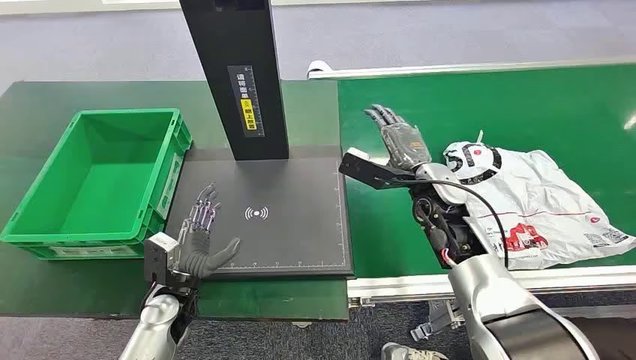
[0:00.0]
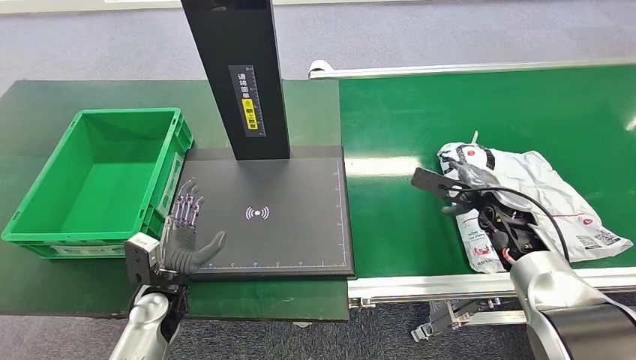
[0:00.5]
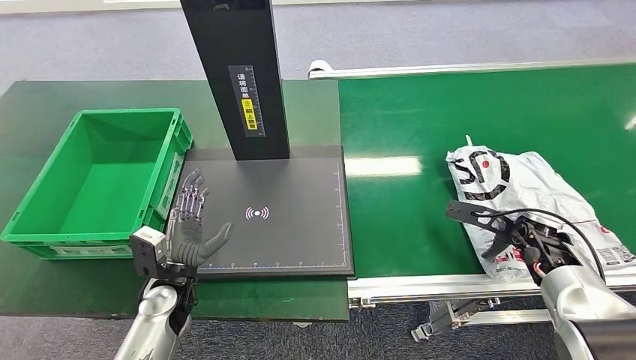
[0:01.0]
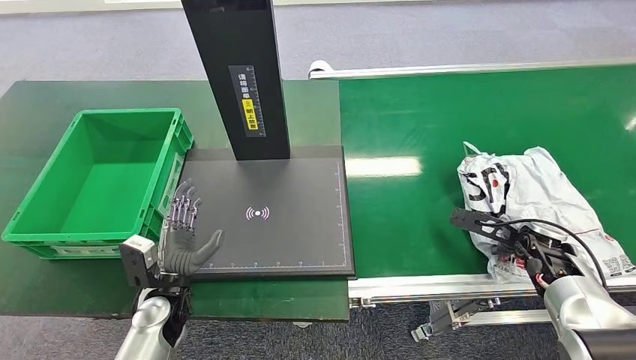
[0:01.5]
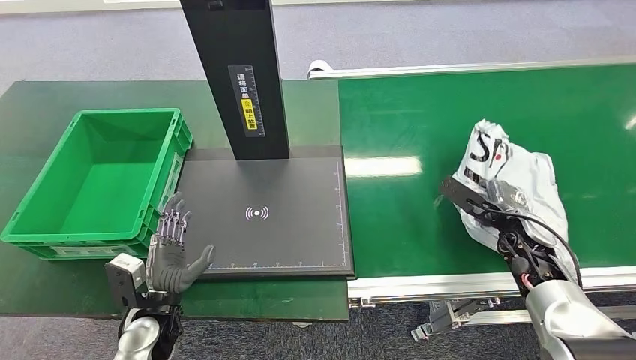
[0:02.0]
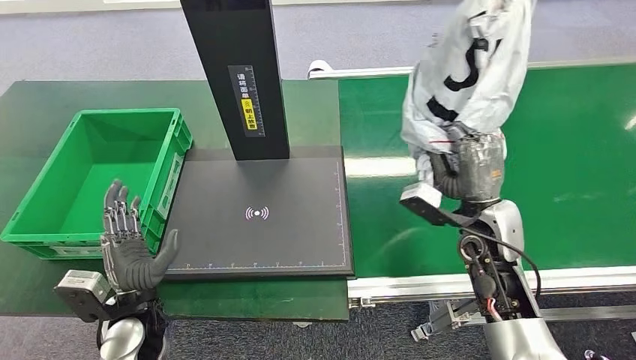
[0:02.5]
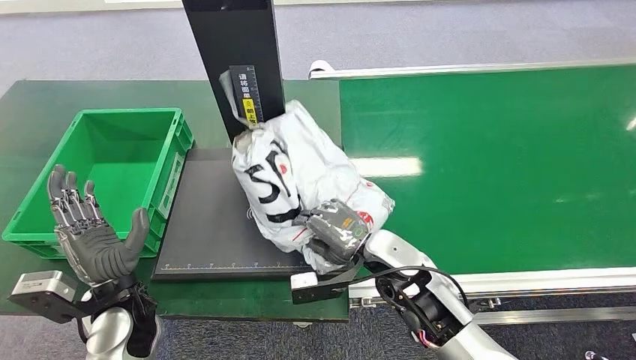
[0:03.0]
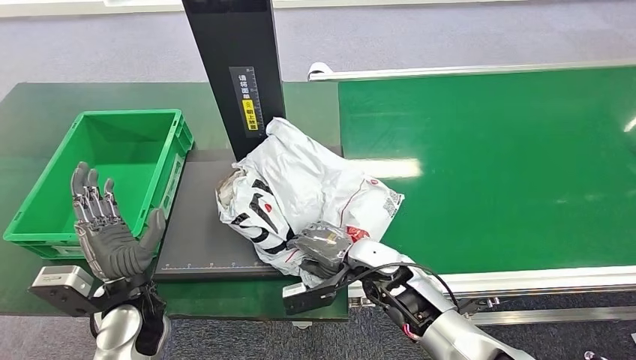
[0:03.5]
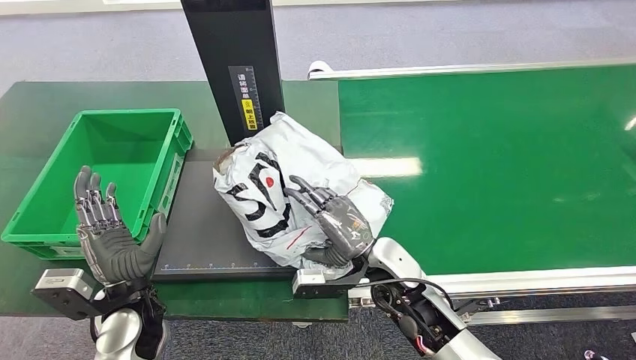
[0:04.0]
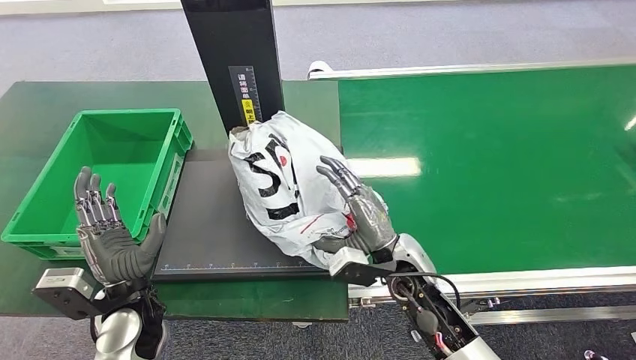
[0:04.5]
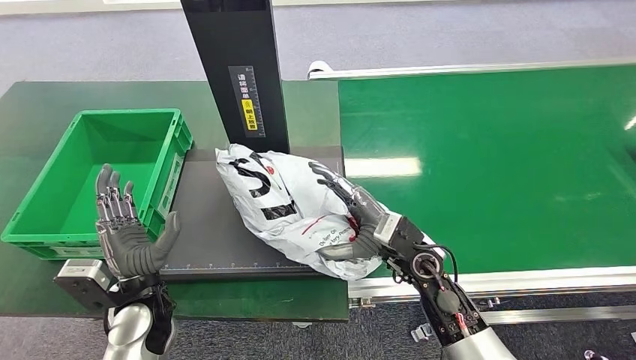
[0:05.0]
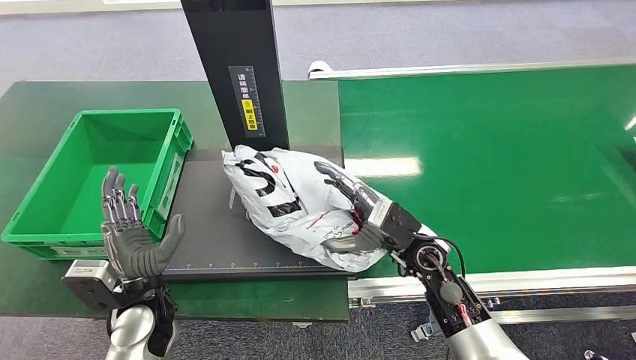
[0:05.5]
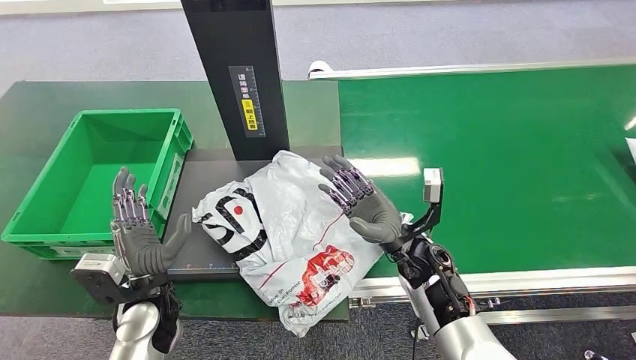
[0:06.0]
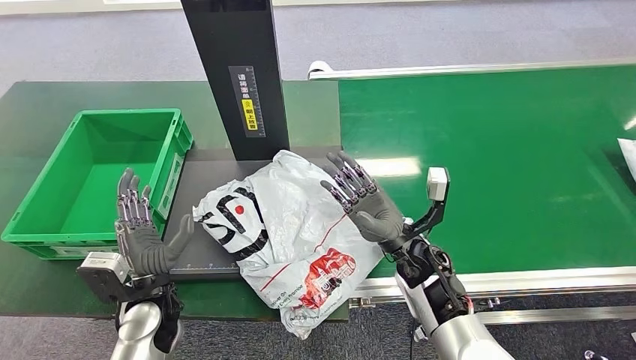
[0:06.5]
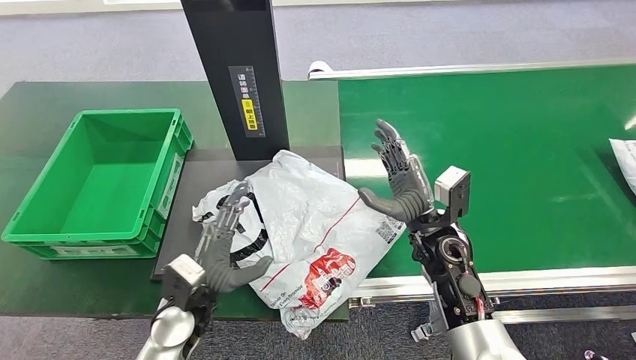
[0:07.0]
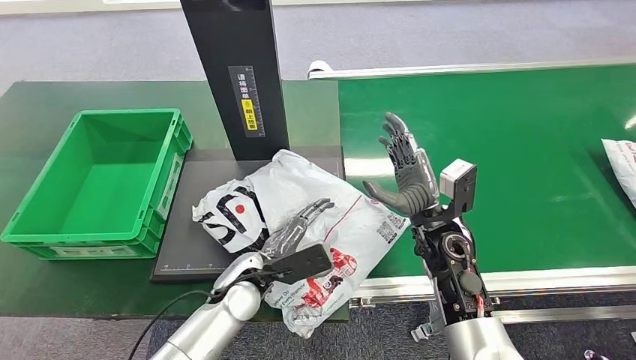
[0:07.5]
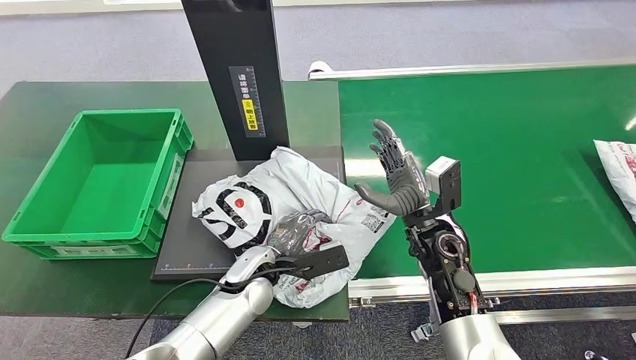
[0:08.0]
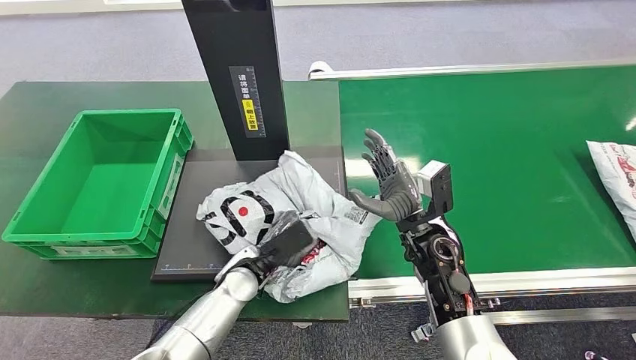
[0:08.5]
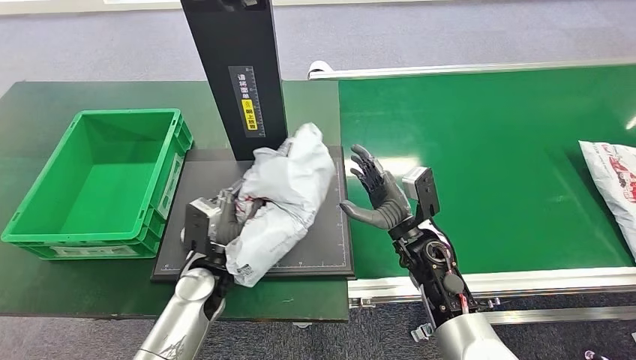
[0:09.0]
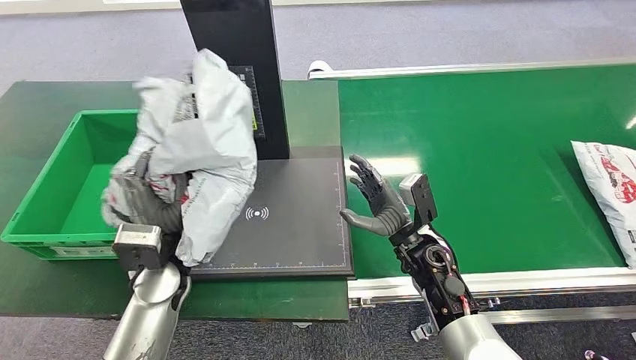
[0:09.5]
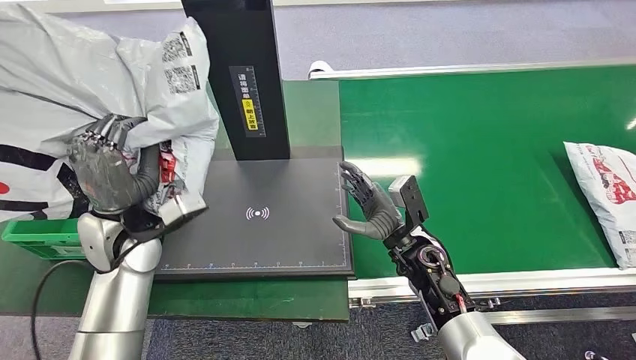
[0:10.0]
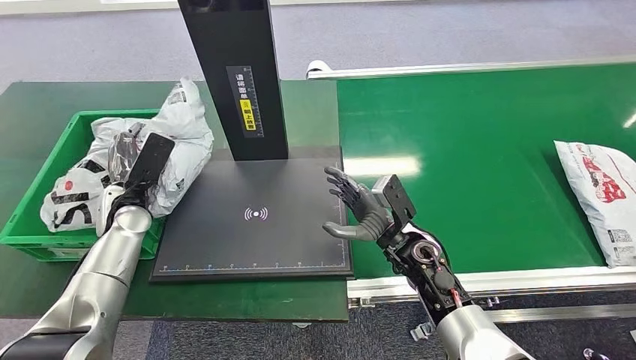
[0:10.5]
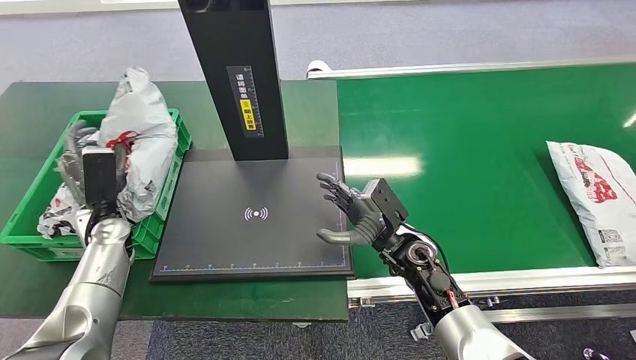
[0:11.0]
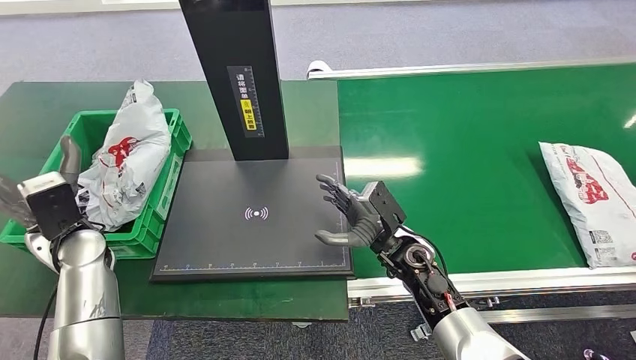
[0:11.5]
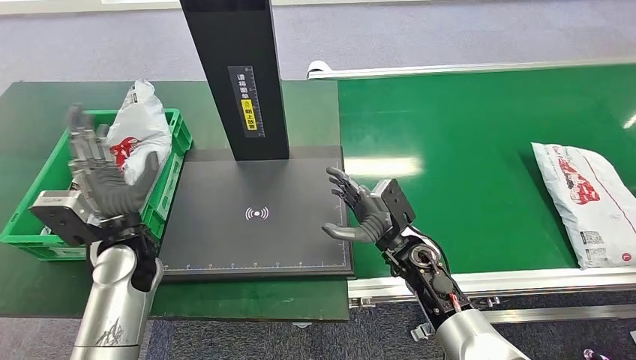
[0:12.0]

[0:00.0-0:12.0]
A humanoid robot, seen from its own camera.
Step, 0:00.0 to 0:02.5: Pick up the package from the conveyor belt.
Step, 0:03.5 to 0:06.5: Place the package onto the inbound machine.
Step, 0:07.0 to 0:09.5: Pick up the package from the inbound machine.
Step, 0:10.0 to 0:12.0: Place the package into the parcel locker.
0:06.0 to 0:08.0: The left hand goes approximately 15 cm to the right and forward.

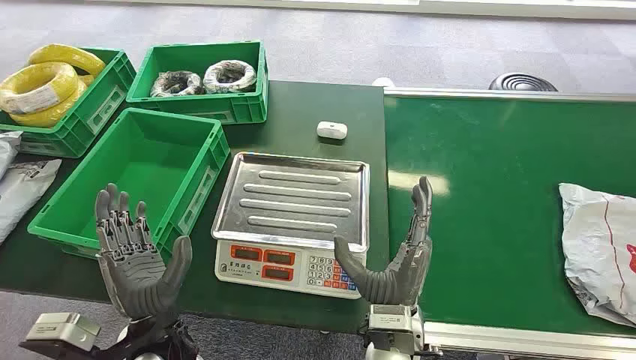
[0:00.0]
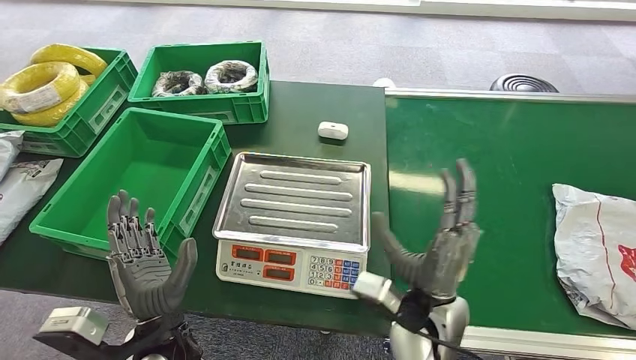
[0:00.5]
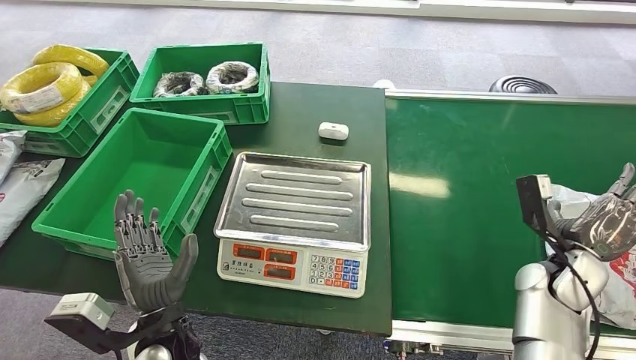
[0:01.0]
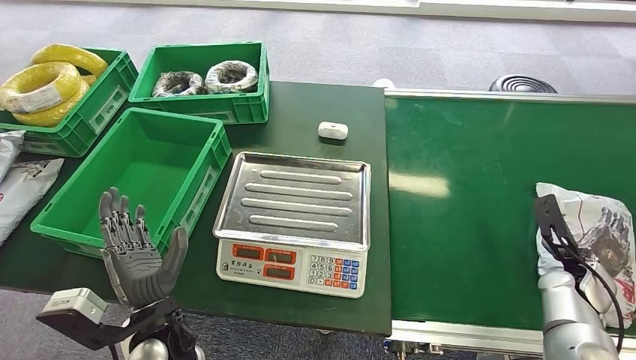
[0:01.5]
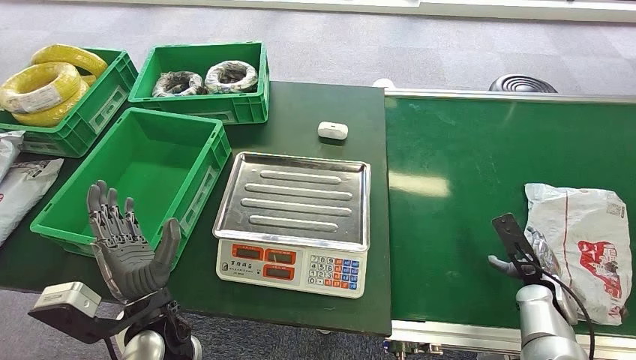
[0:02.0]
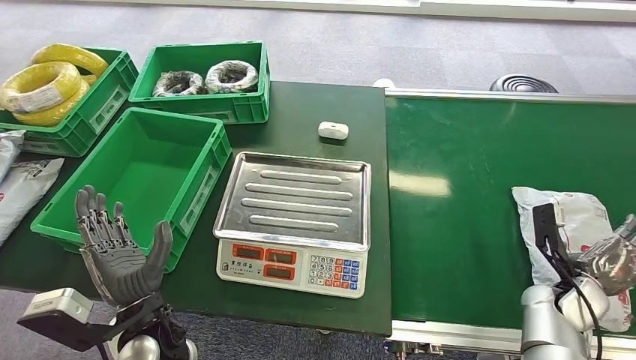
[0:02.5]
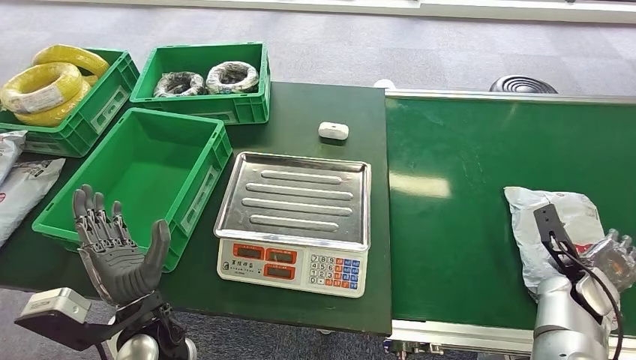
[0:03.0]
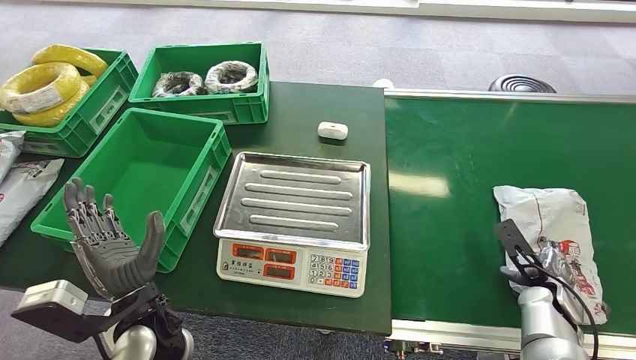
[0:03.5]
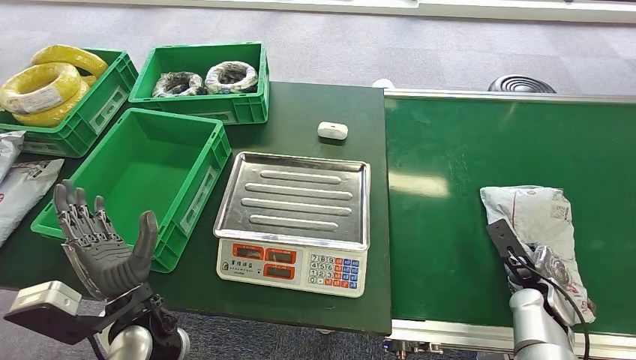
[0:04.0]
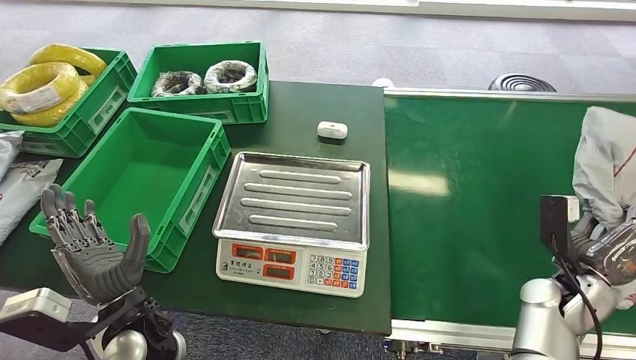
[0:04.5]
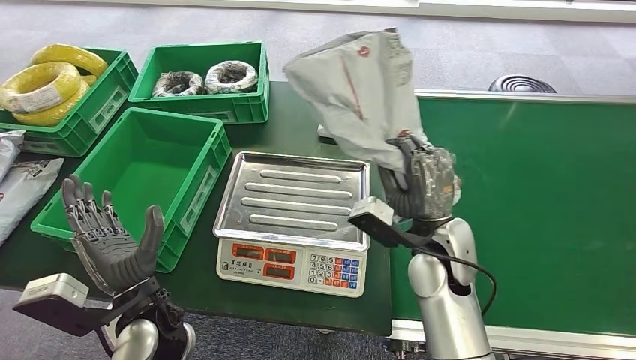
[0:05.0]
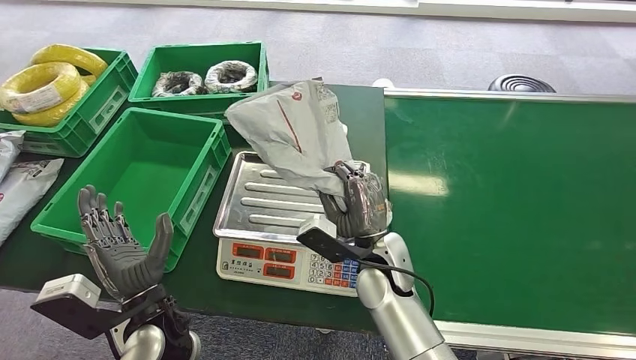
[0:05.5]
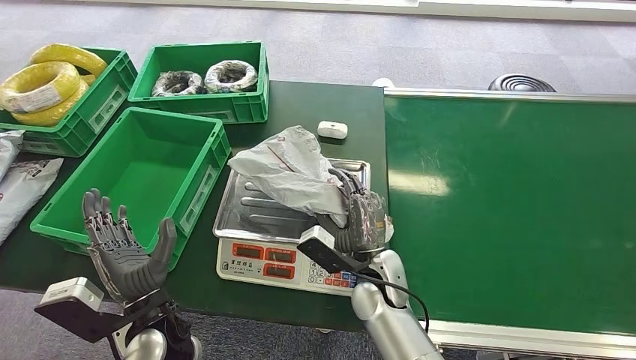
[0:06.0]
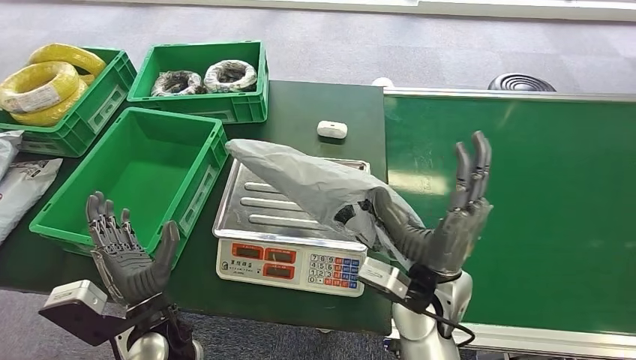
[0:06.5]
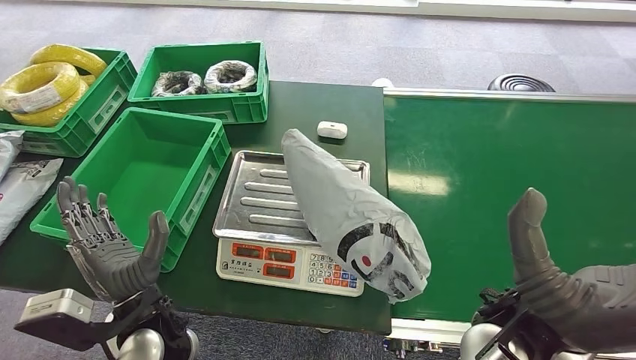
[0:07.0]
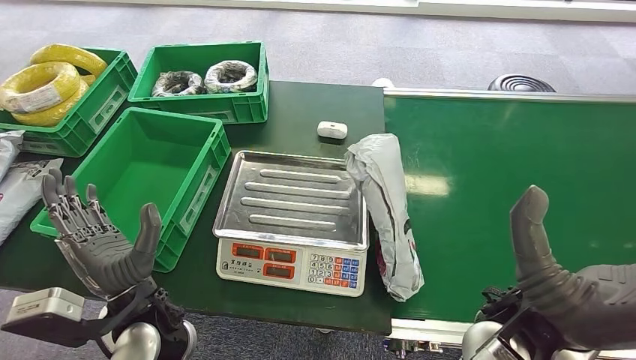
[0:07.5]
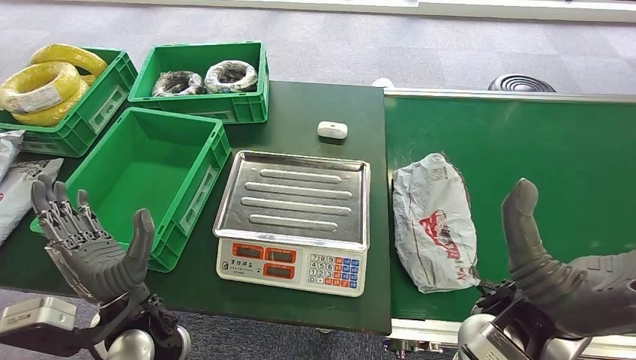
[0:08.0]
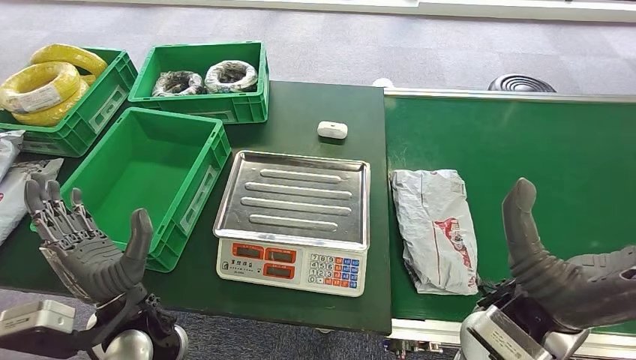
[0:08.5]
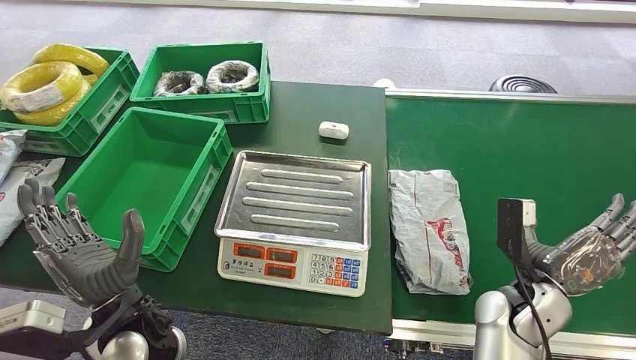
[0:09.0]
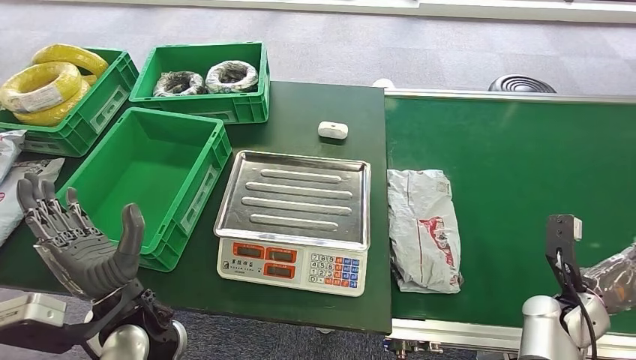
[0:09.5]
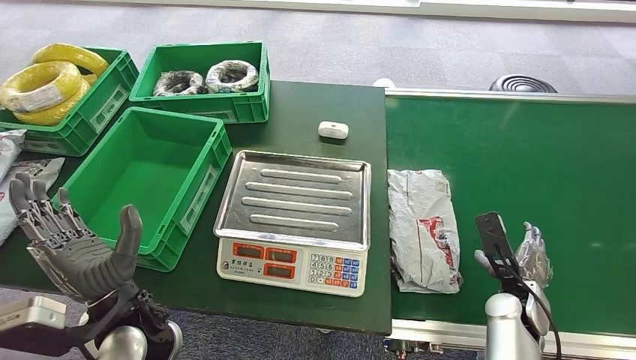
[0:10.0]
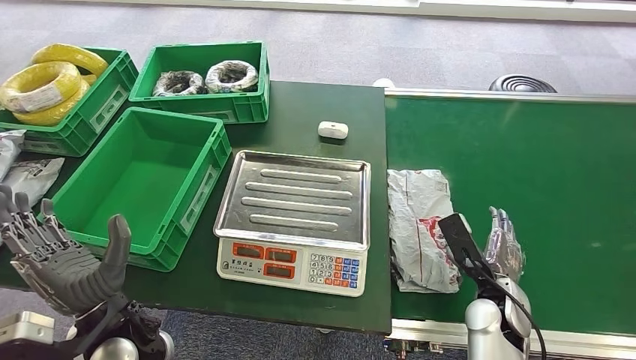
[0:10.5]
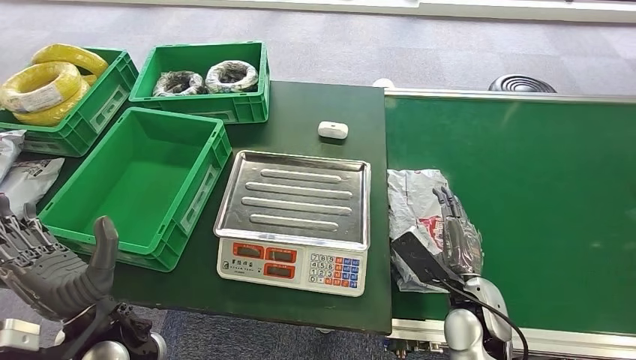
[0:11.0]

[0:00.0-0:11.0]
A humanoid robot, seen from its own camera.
Step, 0:00.0 to 0:04.5: Pick up the package from the conveyor belt.
0:09.0 to 0:11.0: The right hand is displaced to the left by some 5 cm.
